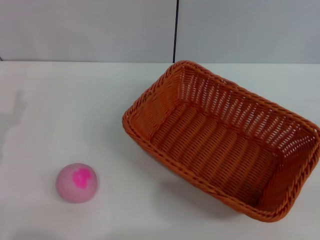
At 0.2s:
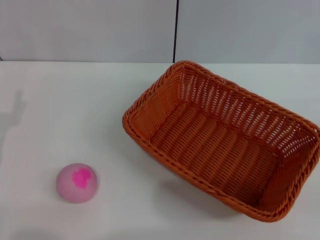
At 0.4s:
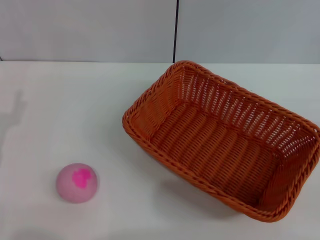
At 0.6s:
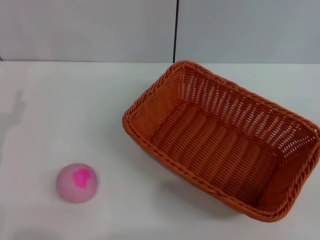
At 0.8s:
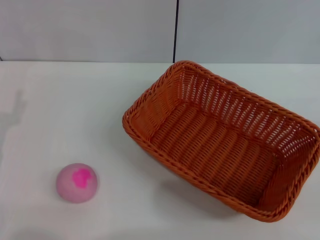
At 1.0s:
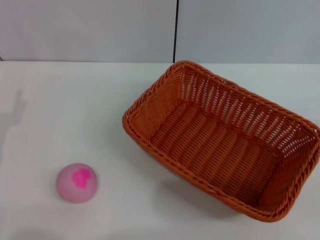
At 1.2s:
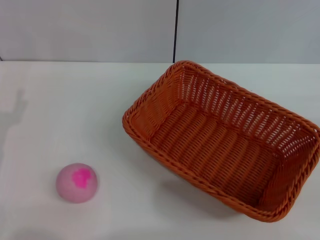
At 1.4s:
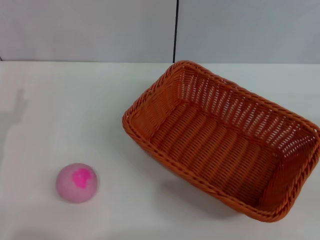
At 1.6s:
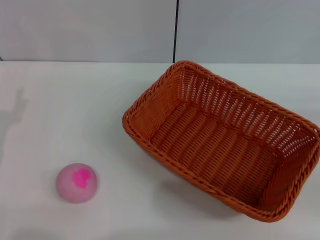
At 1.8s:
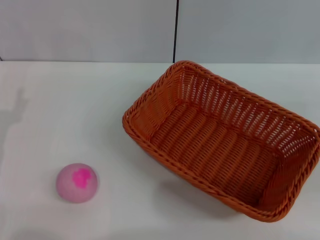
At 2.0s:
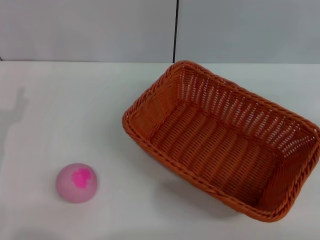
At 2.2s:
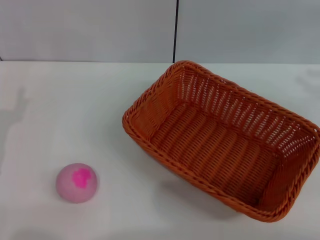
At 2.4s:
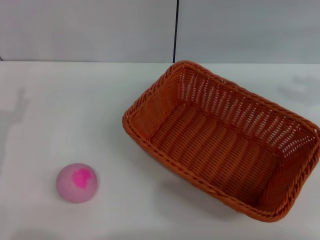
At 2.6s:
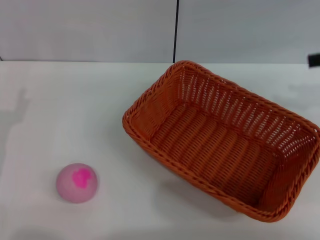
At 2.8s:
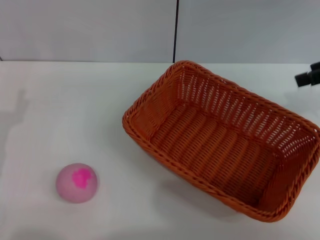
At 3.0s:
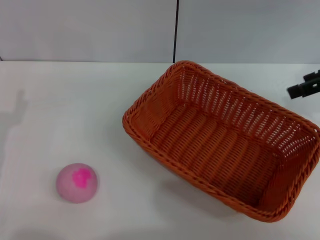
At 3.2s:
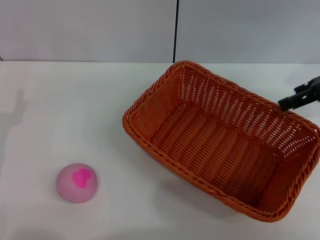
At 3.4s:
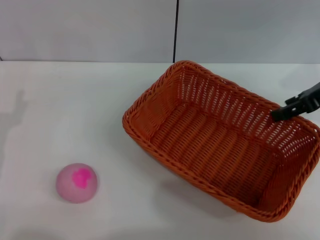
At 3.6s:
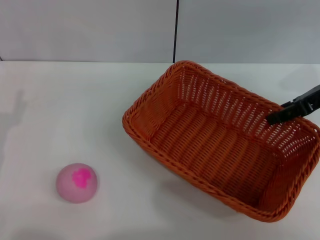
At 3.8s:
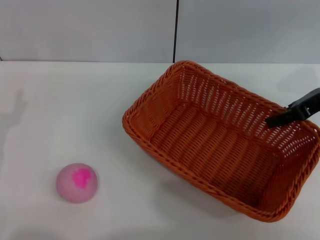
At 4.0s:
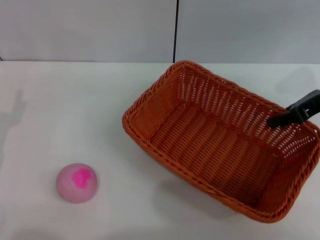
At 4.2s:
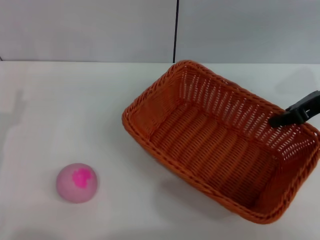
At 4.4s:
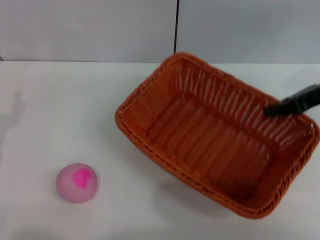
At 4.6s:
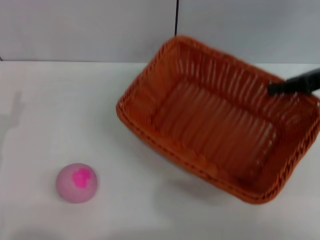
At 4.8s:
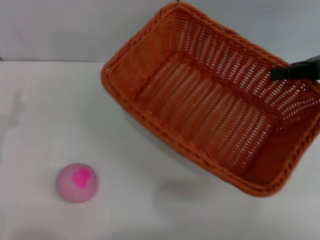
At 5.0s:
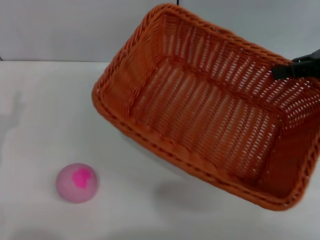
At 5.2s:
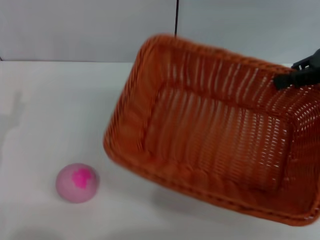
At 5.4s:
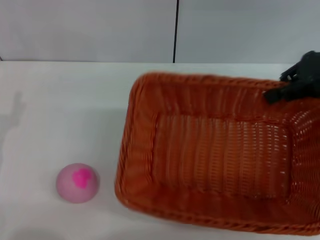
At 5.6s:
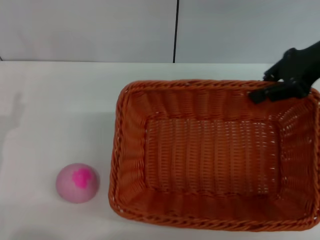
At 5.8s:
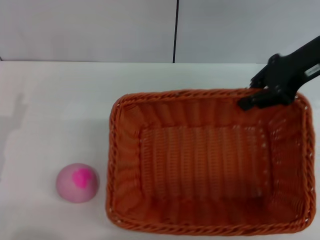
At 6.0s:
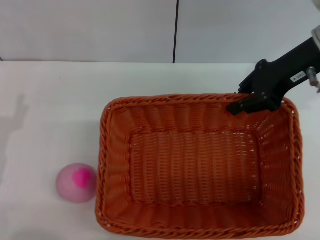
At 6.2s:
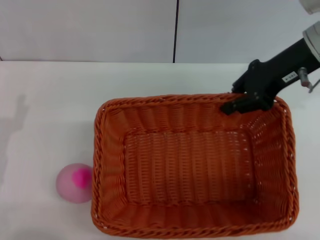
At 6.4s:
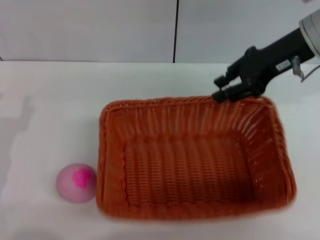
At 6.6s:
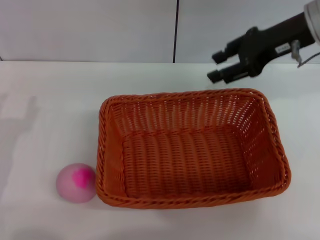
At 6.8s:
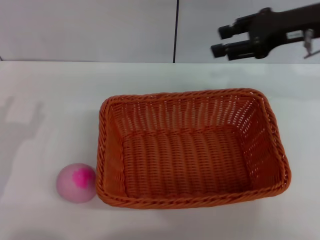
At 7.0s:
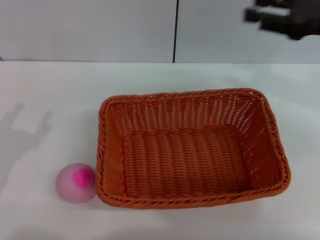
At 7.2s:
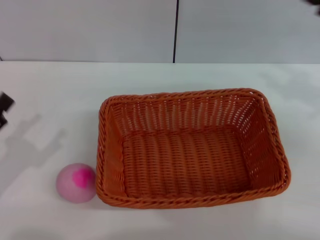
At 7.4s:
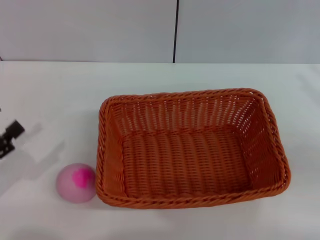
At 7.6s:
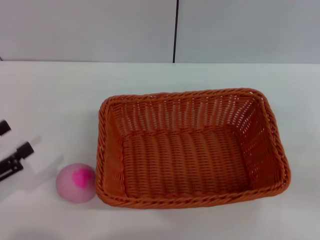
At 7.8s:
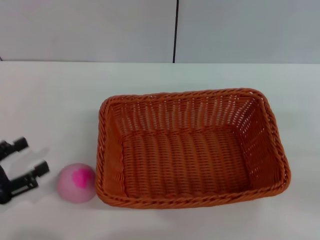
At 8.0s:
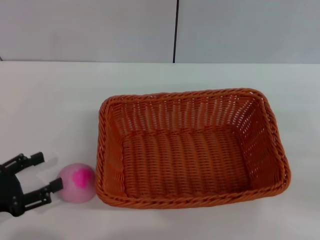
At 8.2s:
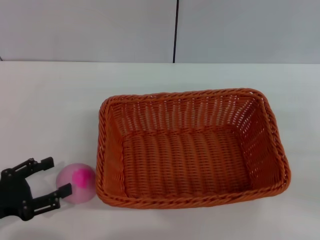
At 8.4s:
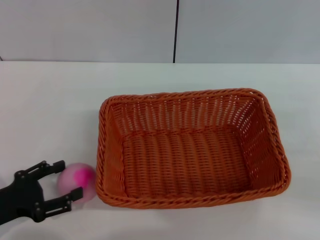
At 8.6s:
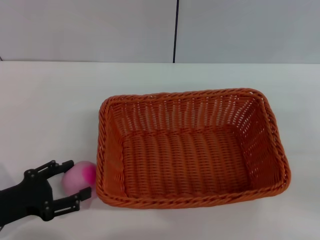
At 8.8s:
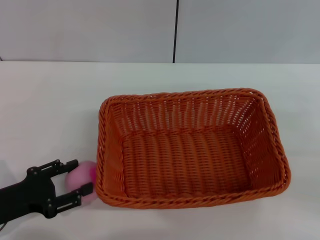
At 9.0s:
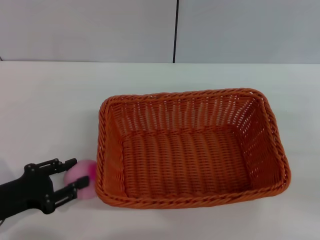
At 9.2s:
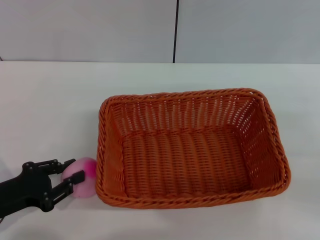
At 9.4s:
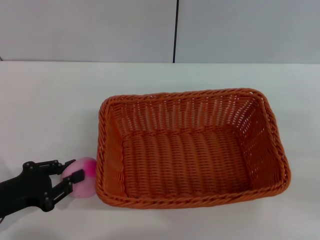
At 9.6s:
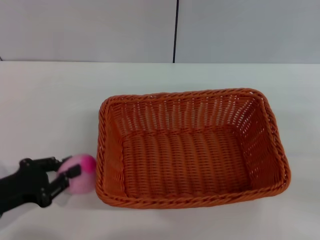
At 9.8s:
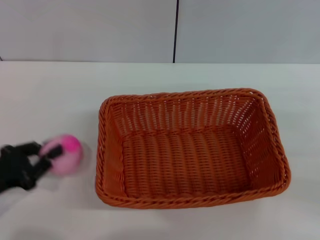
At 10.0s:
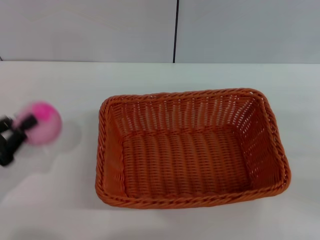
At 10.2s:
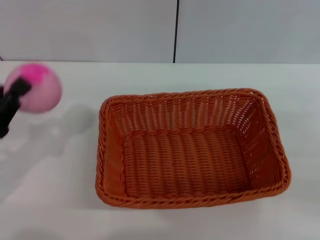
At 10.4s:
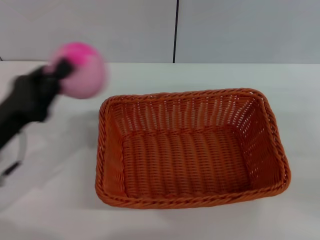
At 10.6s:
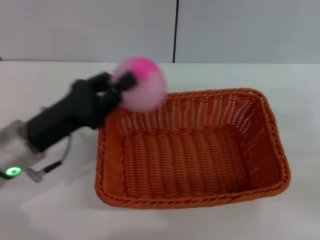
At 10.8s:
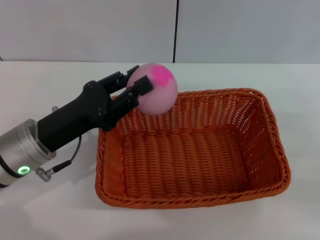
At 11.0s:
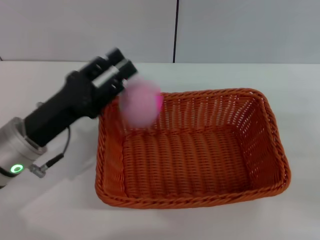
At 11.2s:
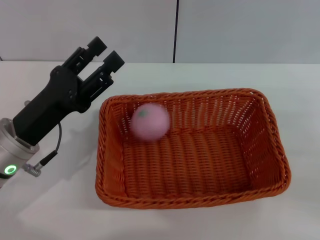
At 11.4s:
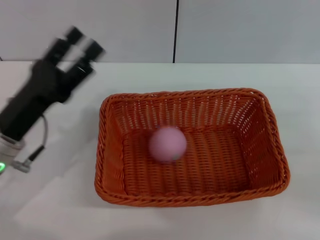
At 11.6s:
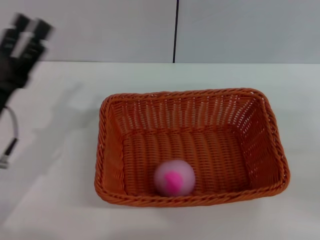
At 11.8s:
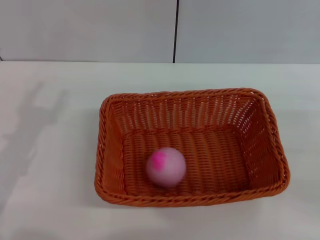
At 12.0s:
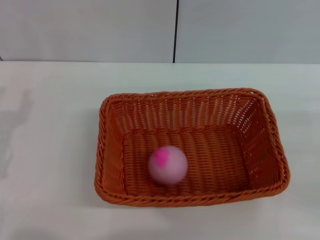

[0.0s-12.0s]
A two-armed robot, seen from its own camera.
Step, 0.0s to 4.8s: Pick up the light basket with the right gripper.
Step, 5.0s to 6.6s: Place the light basket in the center of view with the right gripper.
Step, 6.8s to 10.0s: Pick up the peach with the left gripper.
Step, 10.2s to 11.2s: Place the peach into the basket with the left gripper.
1.6s to 3.0s: The right gripper goes approximately 20 cm upward, forward and to the left, and opens up.
3.0s to 4.4s: The right gripper travels downward by some 5 cm, and closes up.
4.4s to 6.0s: The right gripper heads to the left, covering roughly 10 cm.
6.0s to 7.6s: The right gripper goes about 25 cm to the right, backward and downward, and opens up. Meanwhile the left gripper heads to the left, covering approximately 5 cm.
7.6s to 9.0s: The left gripper moves to the right, approximately 5 cm.
9.0s to 10.4s: The left gripper is displaced upward by some 5 cm, and closes up.
10.4s to 12.0s: The left gripper opens.

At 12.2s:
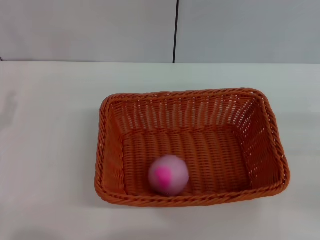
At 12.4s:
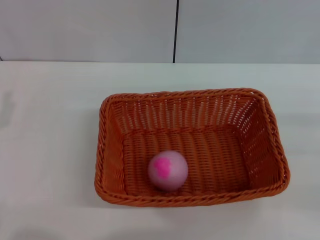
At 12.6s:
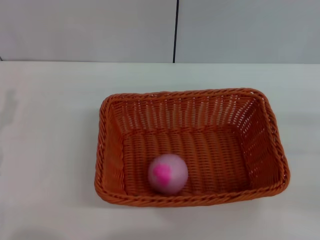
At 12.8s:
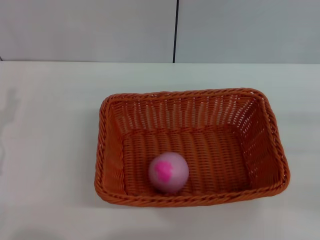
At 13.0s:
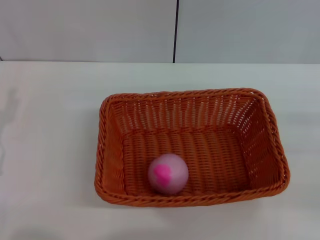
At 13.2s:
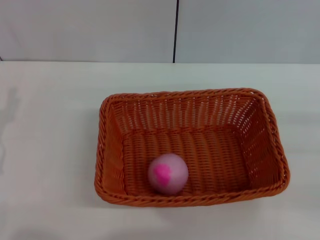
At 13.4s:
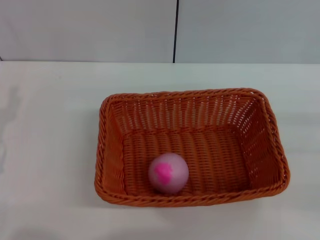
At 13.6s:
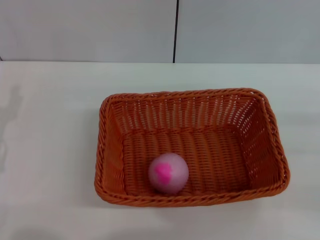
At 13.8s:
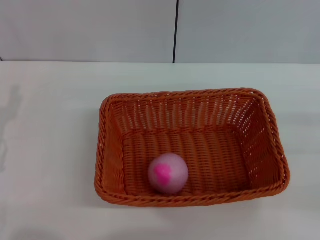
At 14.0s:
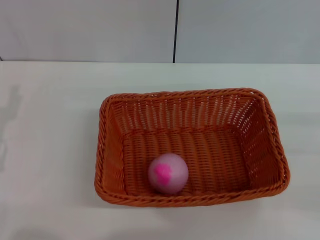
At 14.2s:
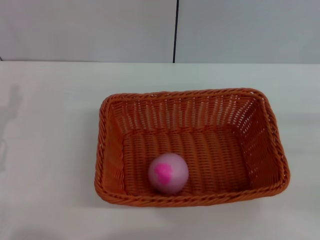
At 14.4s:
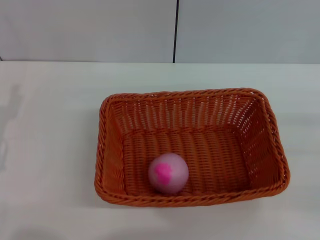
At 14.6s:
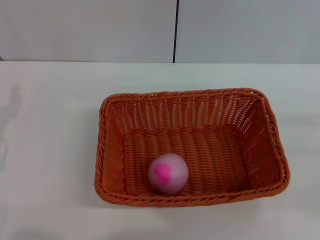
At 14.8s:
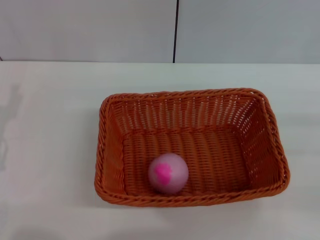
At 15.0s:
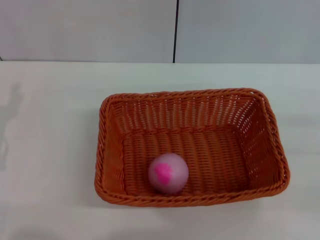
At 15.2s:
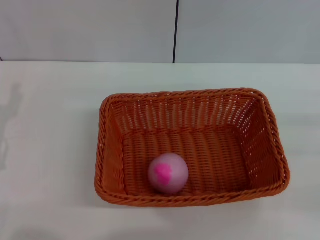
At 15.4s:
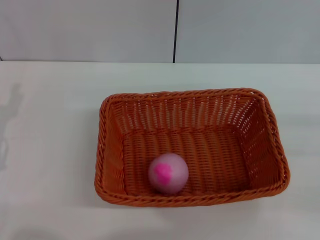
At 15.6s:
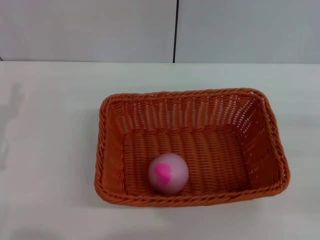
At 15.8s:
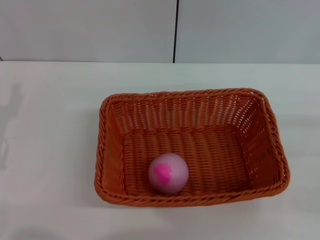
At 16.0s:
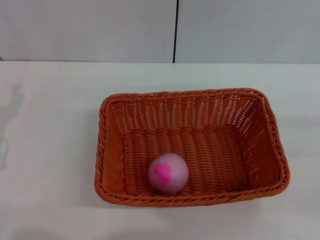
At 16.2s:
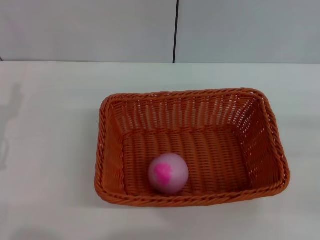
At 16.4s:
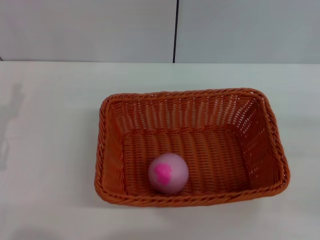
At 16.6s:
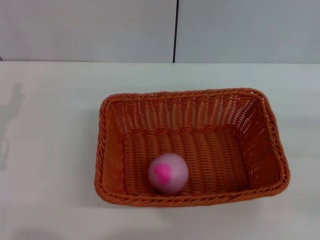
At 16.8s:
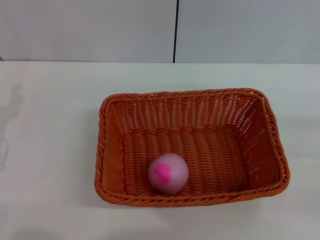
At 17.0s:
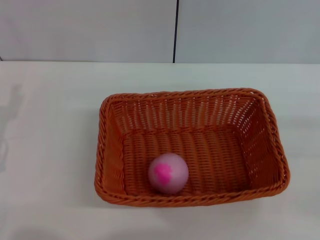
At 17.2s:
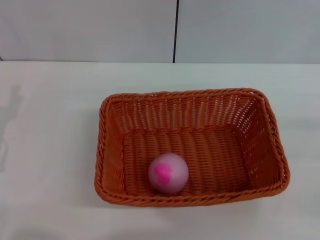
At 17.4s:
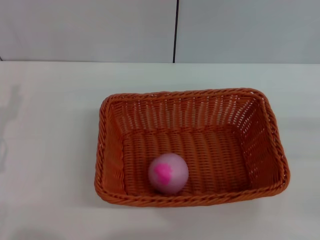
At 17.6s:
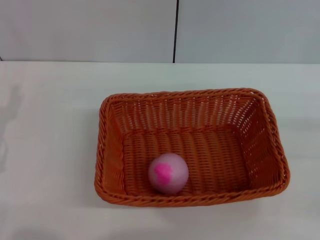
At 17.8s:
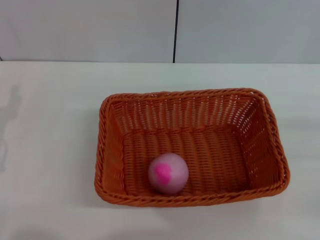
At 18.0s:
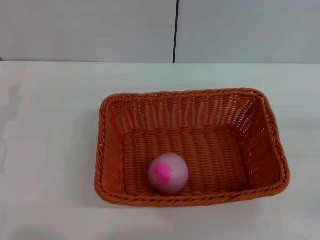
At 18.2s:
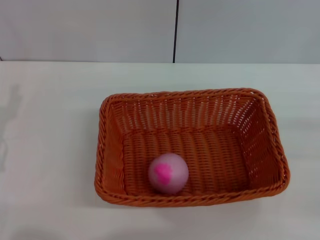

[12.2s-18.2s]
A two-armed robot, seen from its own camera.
13.8s to 18.2s: The two grippers keep their place.

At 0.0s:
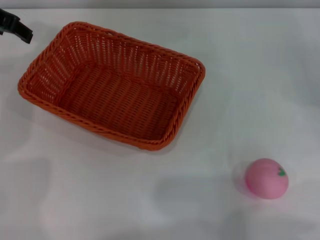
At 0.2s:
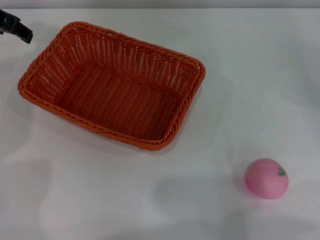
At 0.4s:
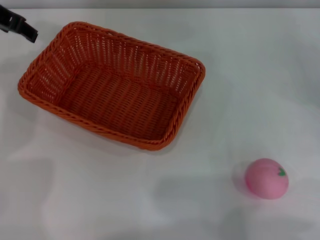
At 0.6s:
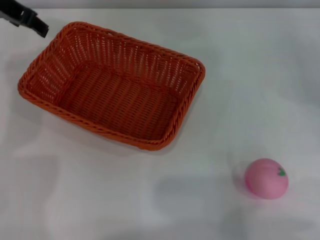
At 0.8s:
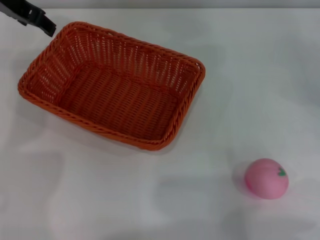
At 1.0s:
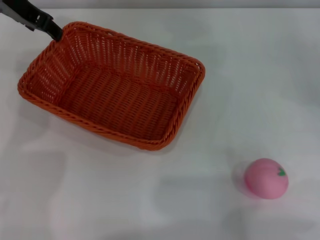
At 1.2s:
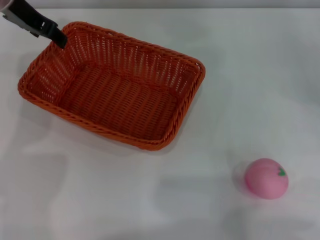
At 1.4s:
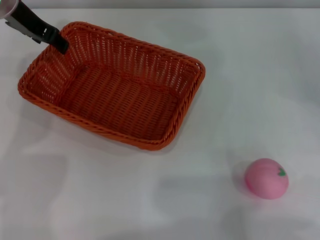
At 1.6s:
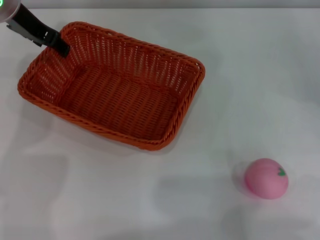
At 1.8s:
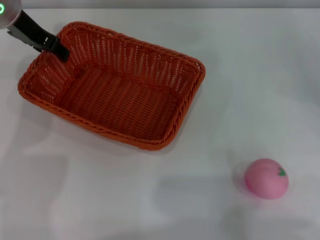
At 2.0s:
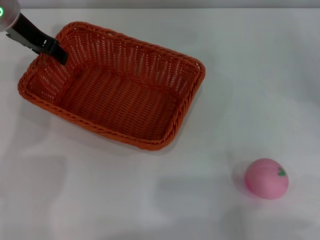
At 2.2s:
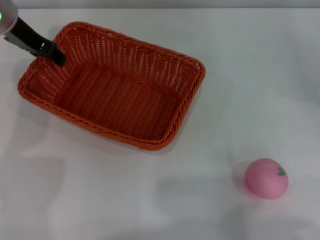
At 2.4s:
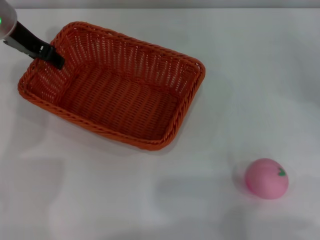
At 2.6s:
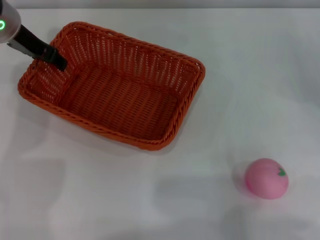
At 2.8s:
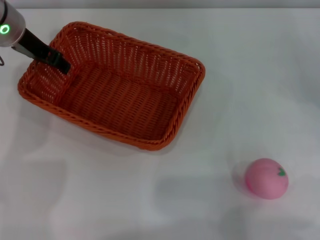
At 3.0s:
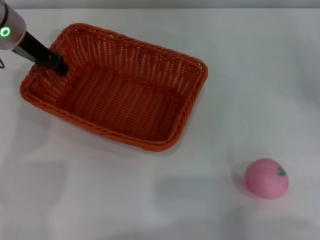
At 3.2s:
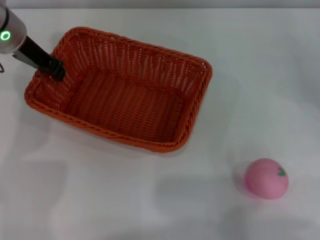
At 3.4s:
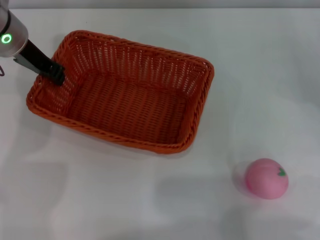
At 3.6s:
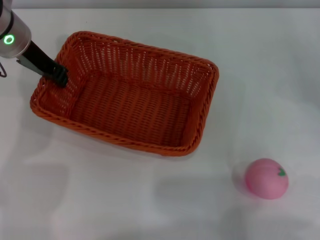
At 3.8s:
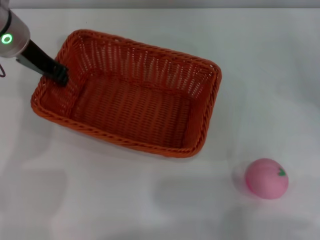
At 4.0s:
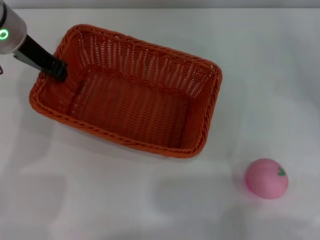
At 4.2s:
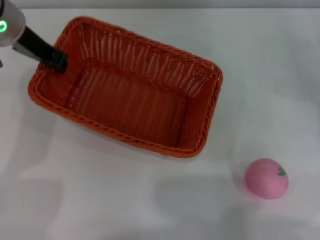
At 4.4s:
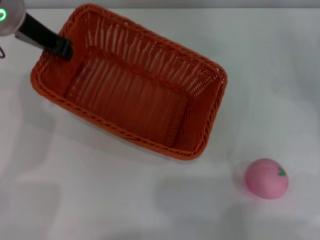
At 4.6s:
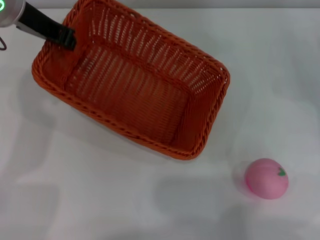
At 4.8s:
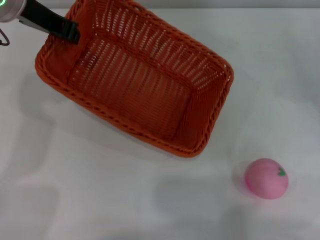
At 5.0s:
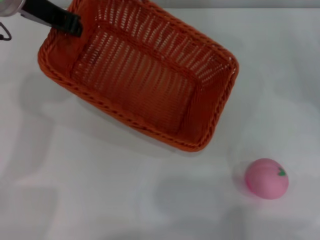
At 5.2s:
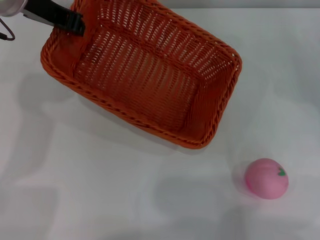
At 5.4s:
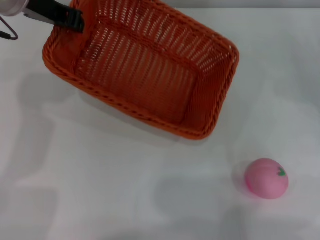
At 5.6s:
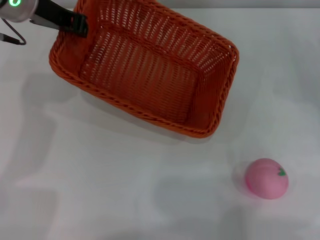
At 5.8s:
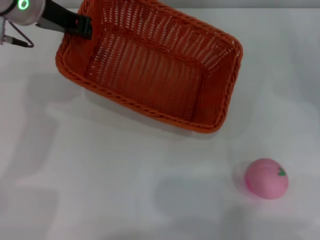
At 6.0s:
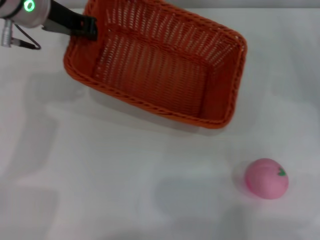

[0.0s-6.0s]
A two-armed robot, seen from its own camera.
Step, 0.0s to 4.2s: Pick up the light basket with the left gripper.
0.0s to 1.6s: The left gripper shifts by roughly 5 cm.
1.6s to 3.0s: The grippers stay close to where they were, moving slightly.
3.0s to 4.4s: The left gripper is displaced upward by some 5 cm, and closes.
